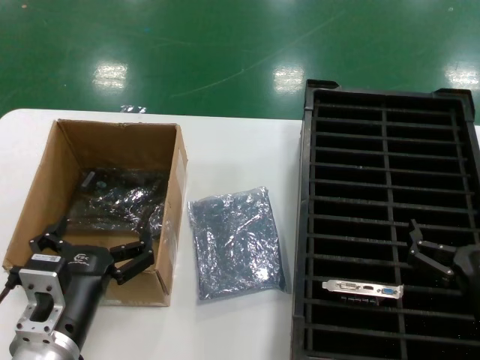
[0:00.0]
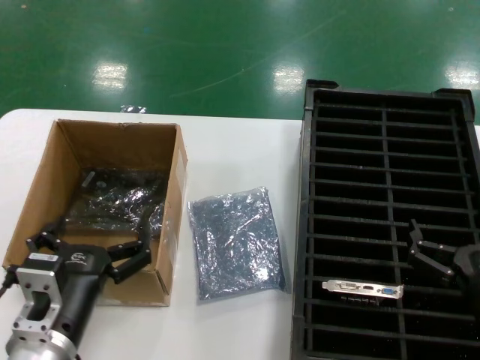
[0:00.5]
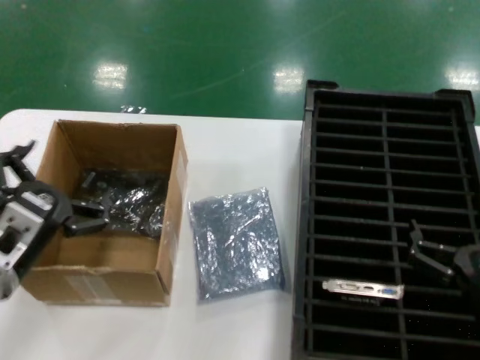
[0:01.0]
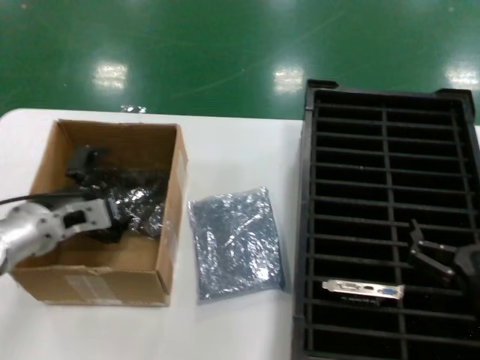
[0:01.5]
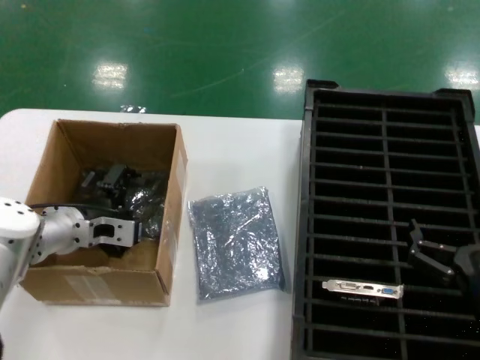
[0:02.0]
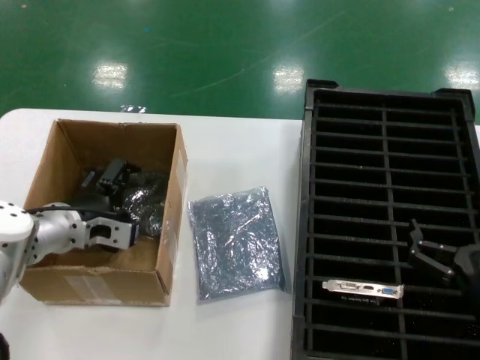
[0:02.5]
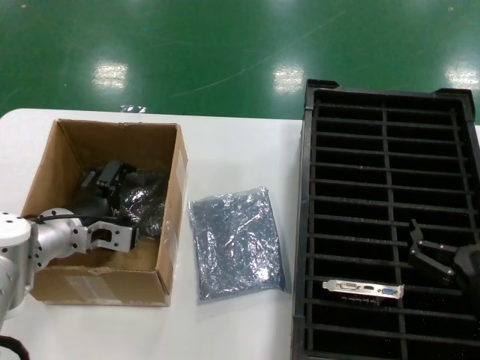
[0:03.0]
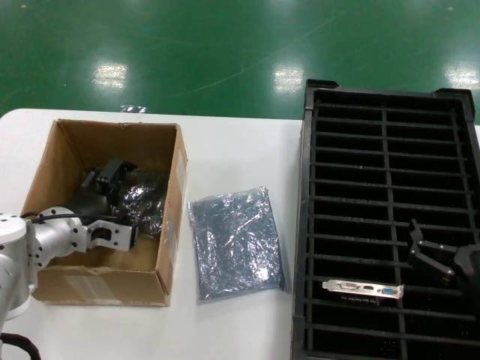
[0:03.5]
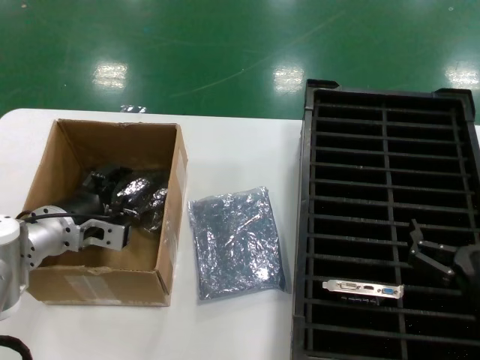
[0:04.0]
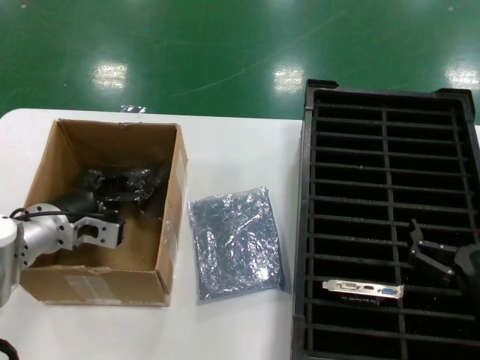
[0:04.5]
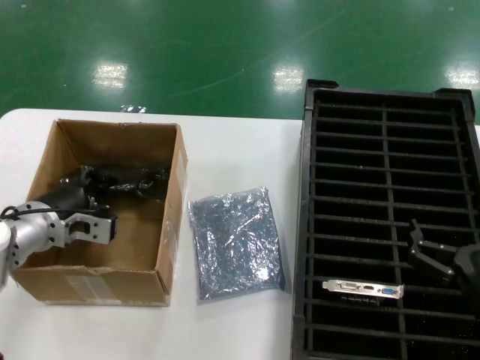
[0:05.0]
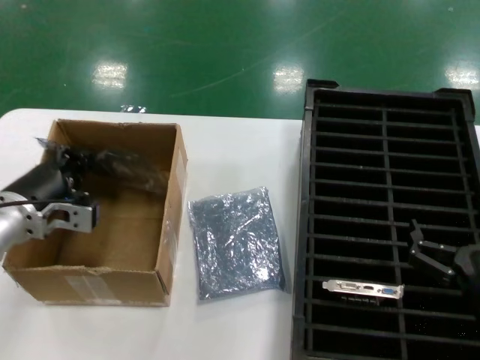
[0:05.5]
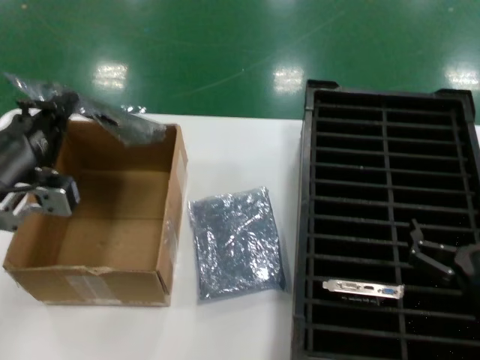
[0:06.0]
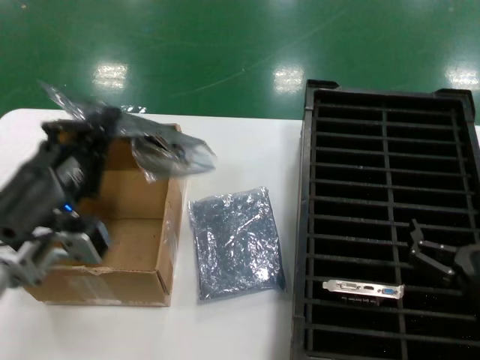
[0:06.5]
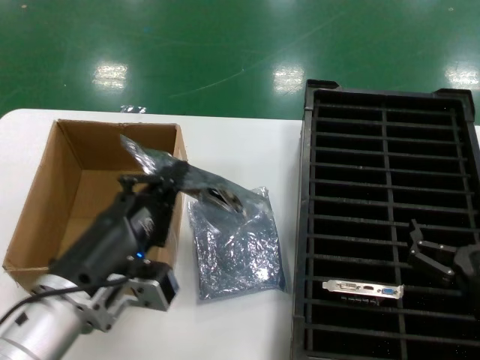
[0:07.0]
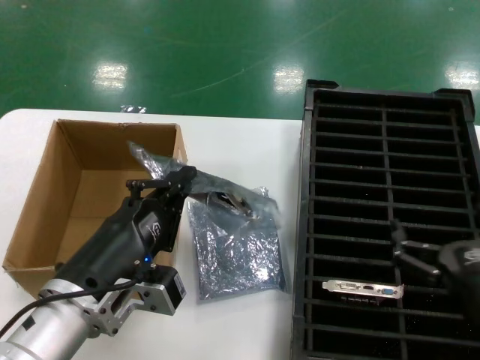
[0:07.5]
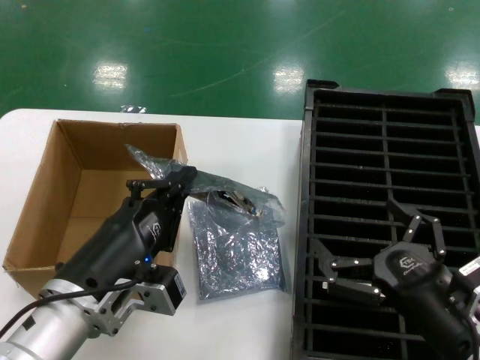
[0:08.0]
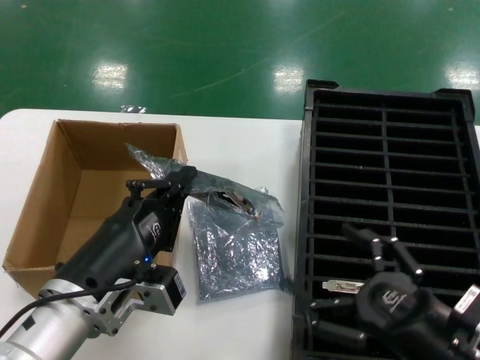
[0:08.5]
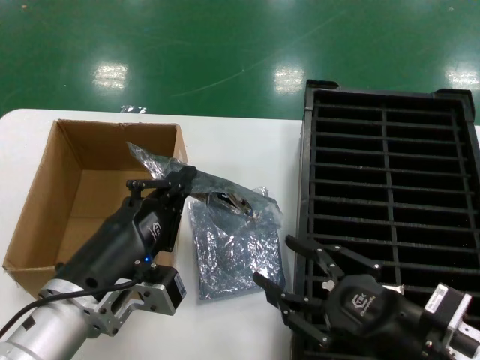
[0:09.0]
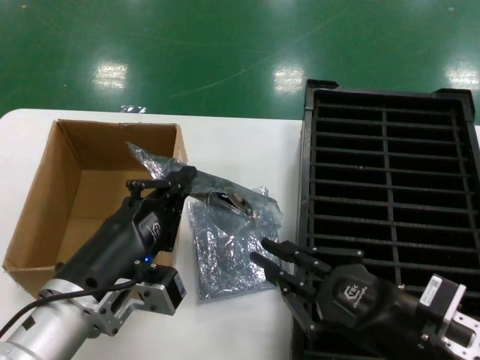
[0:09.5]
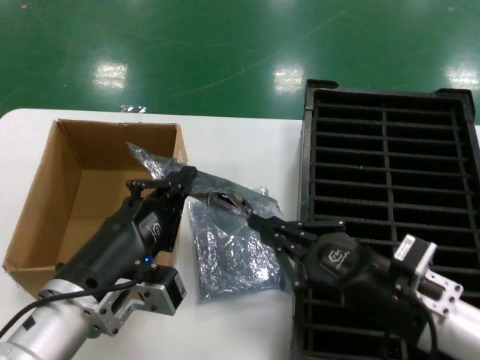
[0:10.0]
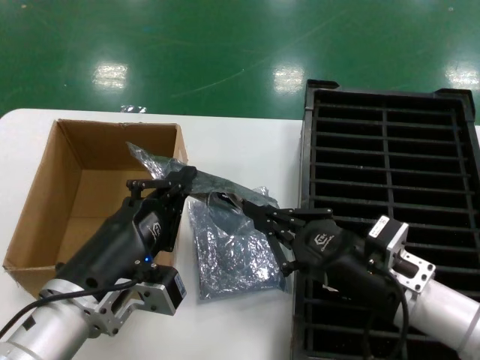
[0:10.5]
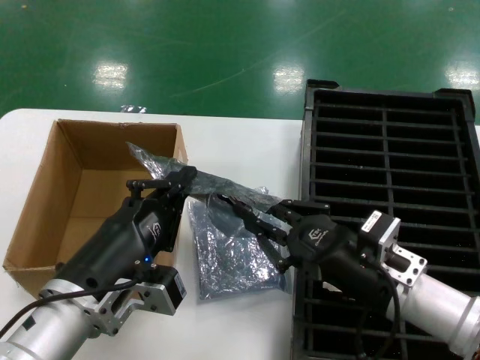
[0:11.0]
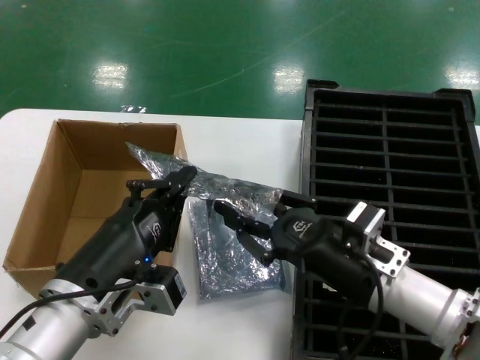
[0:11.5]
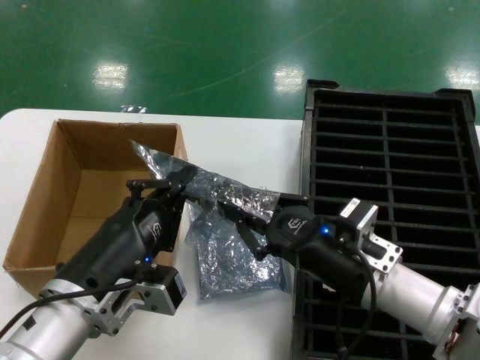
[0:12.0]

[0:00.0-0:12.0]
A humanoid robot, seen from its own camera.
Task of the whole recording: take out graphics card from box remove packaging put into black container.
Step, 0:00.0 to 0:04.5: Grasp the bag.
Step, 0:05.0 to 0:07.5: Lift the bag.
0:00.0 to 0:02.0: The left hand heads forward and to the left, covering about 25 cm.
0:02.0 to 0:04.0: The hands stay close to where they were, moving slightly.
0:04.0 to 0:06.0: The left hand goes some 15 cm backward and upward.
0:06.0 to 0:08.0: The left hand is displaced to the right and backward by about 15 cm.
0:08.0 to 0:10.0: The right hand shifts by approximately 5 cm.
0:10.0 to 0:12.0: The right hand is displaced forward by approximately 5 cm.

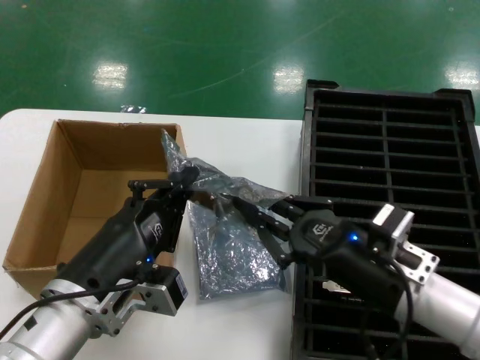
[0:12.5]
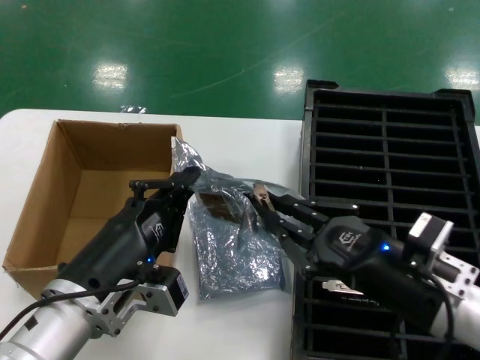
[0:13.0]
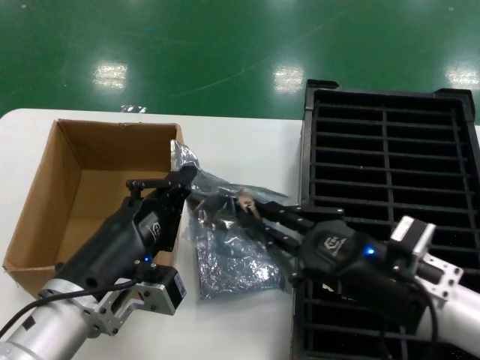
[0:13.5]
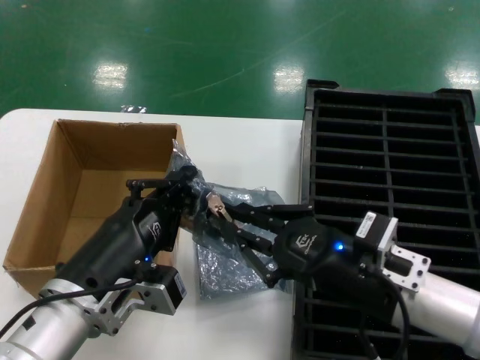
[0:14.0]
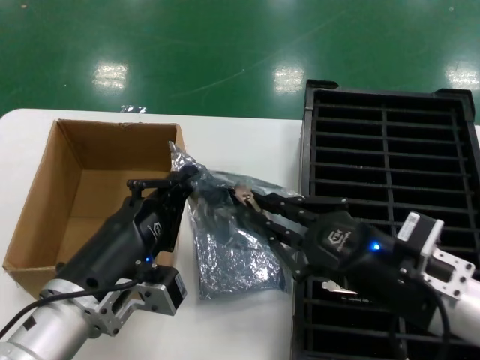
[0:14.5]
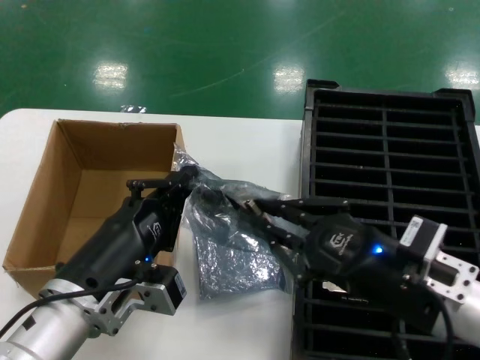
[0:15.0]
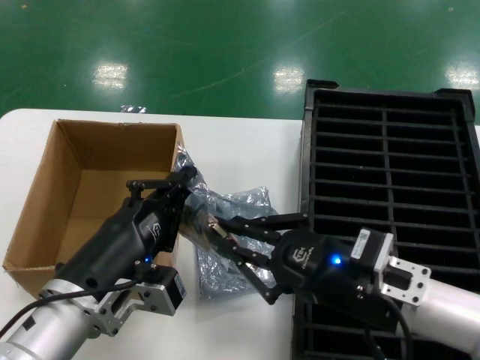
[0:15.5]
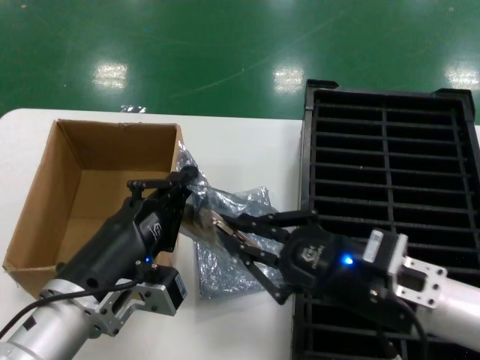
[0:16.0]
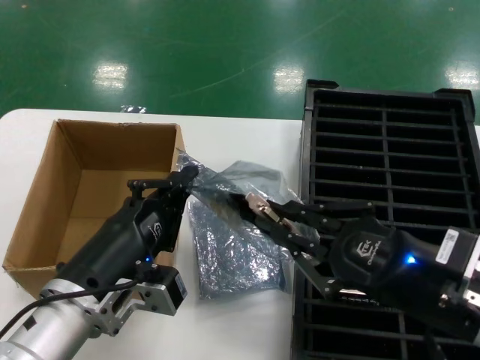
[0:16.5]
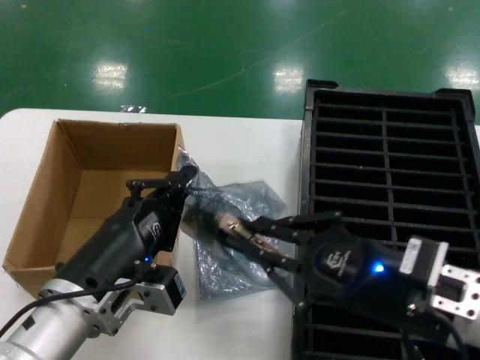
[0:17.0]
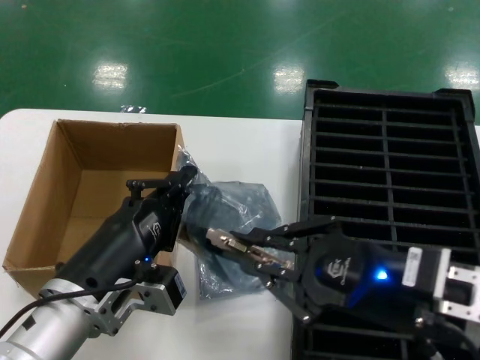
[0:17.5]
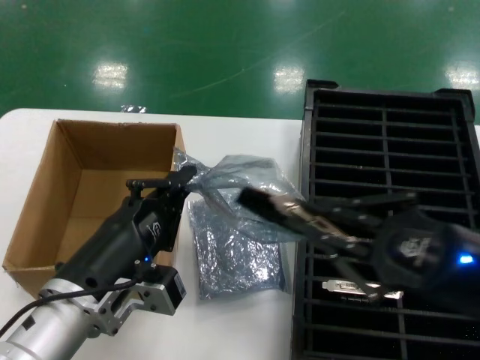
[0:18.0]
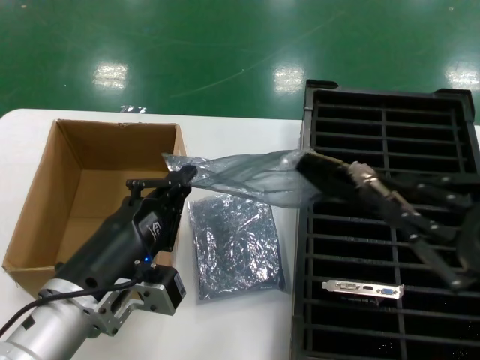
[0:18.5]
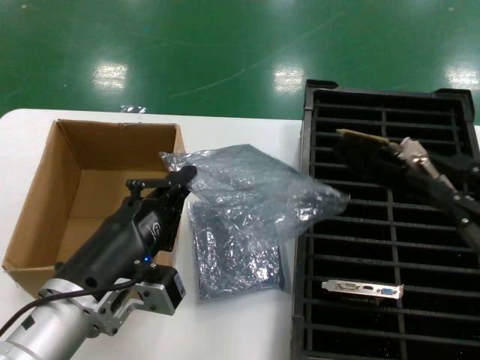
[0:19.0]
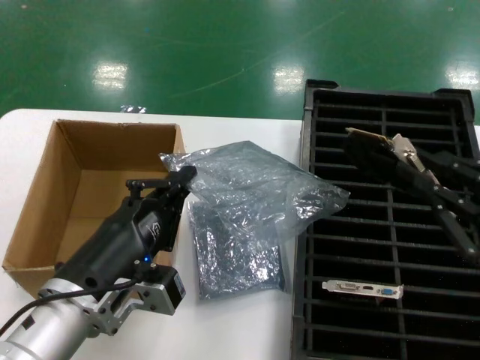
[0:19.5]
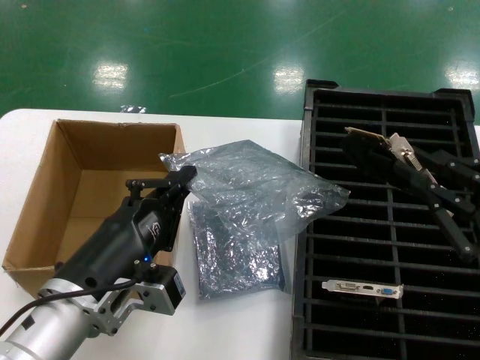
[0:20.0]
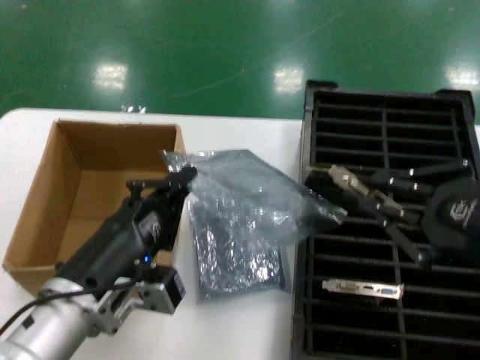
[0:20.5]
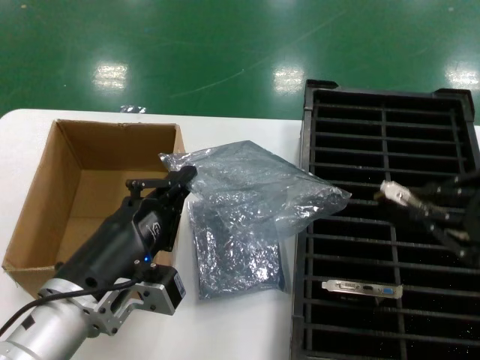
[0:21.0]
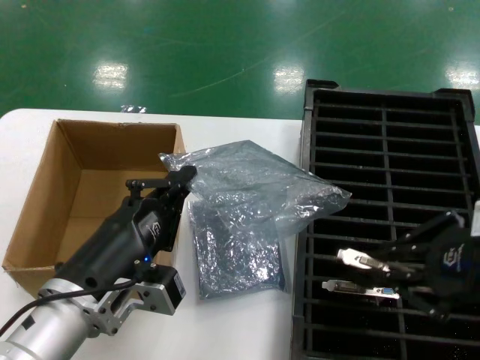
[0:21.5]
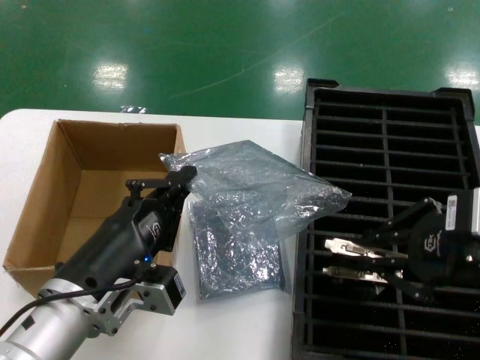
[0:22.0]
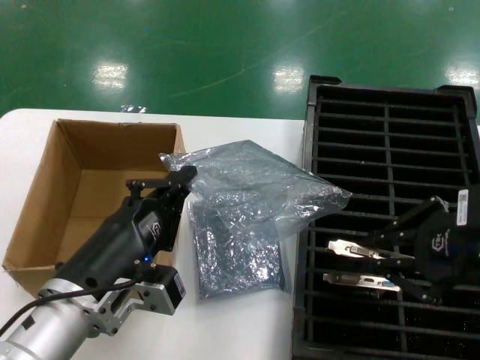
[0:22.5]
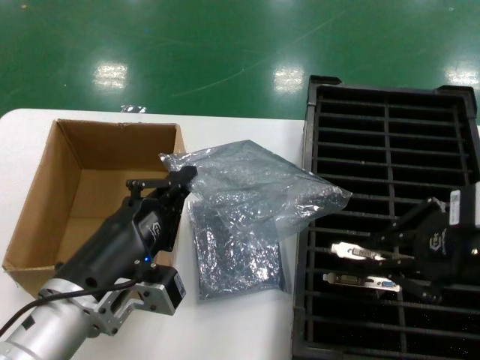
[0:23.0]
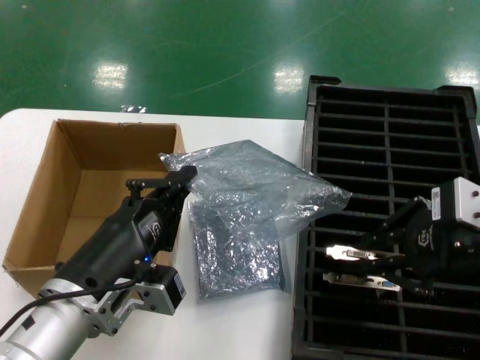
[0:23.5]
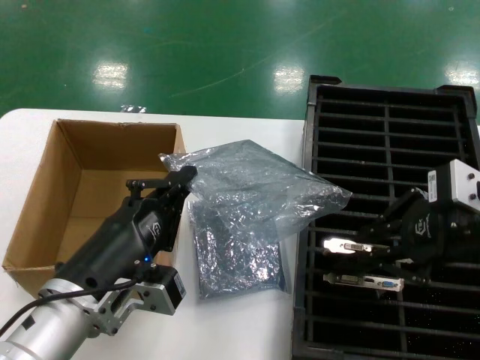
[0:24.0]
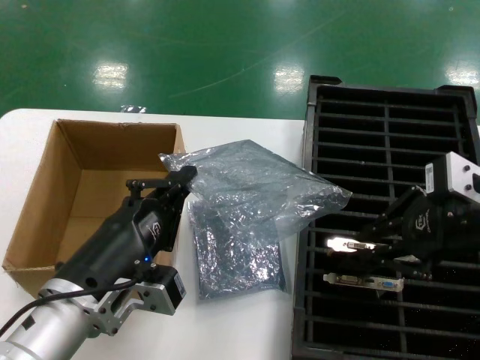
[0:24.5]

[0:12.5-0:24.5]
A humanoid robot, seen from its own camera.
Task of the whole recording: take out graphics card from box remove packaging put into black container.
Step, 0:12.5 to 0:18.5: Take out the hard disk of the bag.
0:12.5 to 0:14.5: The right hand changes place by roughly 5 cm.
0:14.5 to 0:16.5: The hands move only a little.
0:16.5 to 0:18.5: The right hand shifts about 15 cm to the right, upward and backward.
0:18.5 to 0:20.5: There are only small adjustments of the hands.
0:20.5 to 0:22.5: The right hand ends up roughly 5 cm from where it was.
0:22.5 to 0:24.5: The right hand travels forward by some 5 cm.

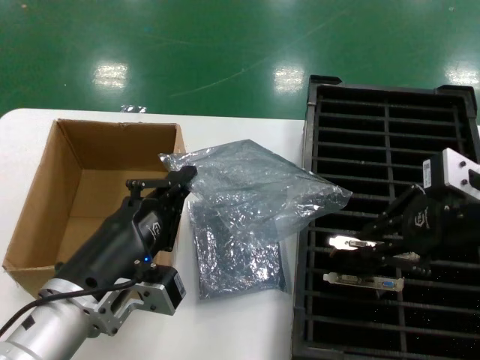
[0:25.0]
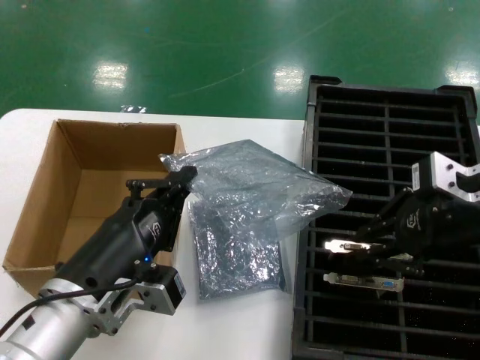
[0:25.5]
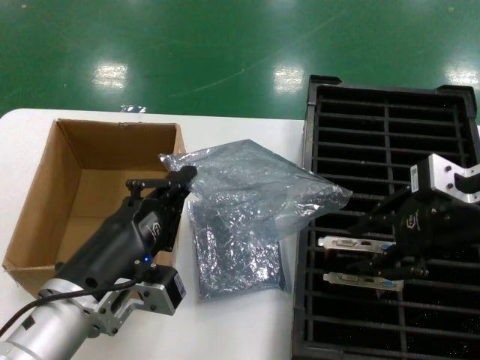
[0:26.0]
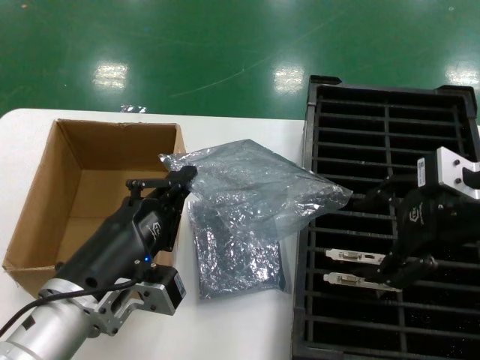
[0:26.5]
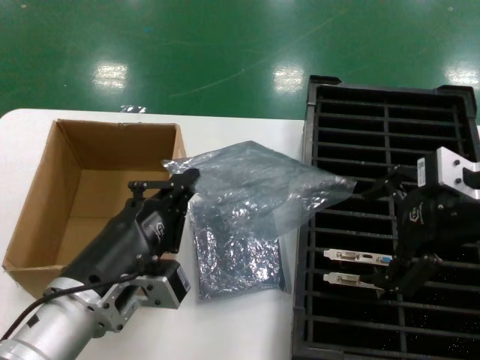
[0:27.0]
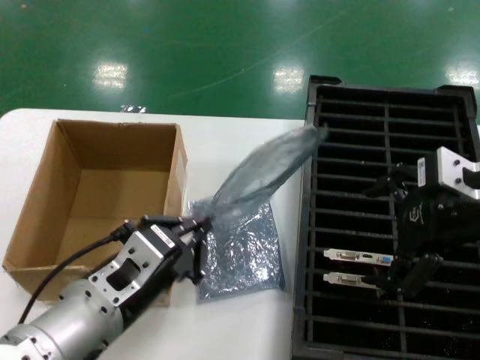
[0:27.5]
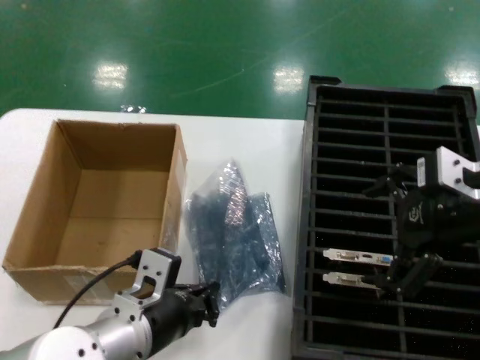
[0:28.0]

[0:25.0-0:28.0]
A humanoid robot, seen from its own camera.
Task of the whole recording: take out graphics card from box remove packaging put into black container.
0:25.0 to 0:26.5: The hands move only a little.
0:26.5 to 0:28.0: The left hand ends up about 5 cm from where it was.
